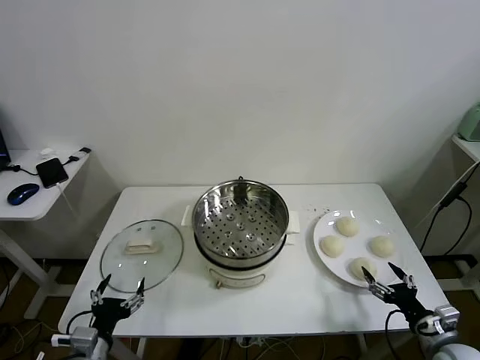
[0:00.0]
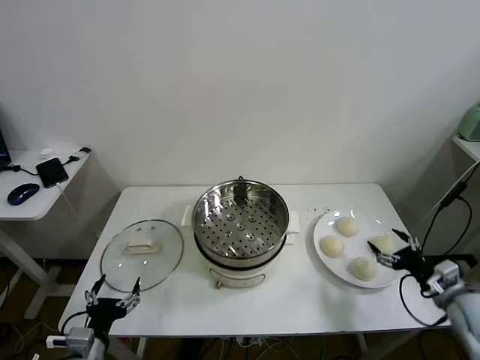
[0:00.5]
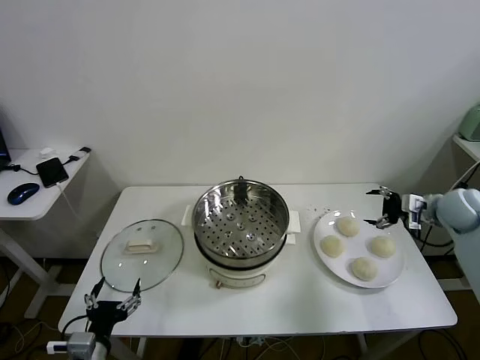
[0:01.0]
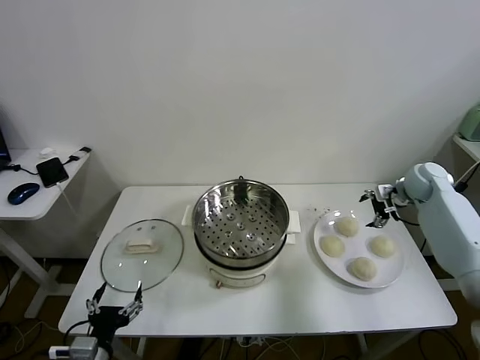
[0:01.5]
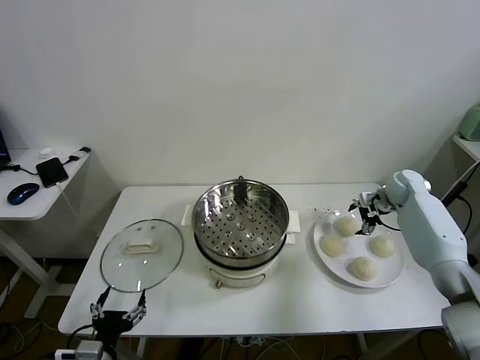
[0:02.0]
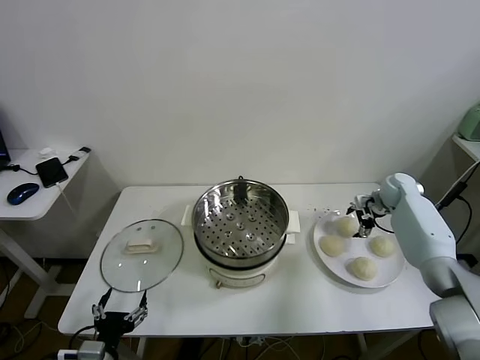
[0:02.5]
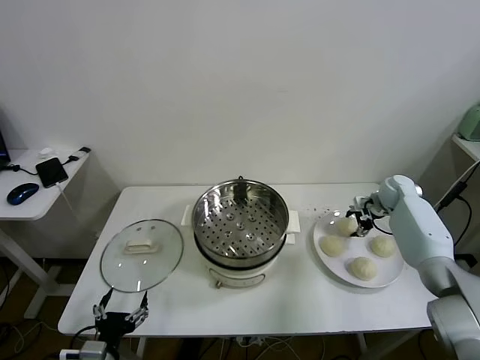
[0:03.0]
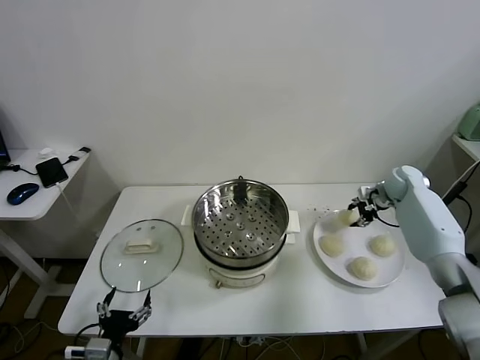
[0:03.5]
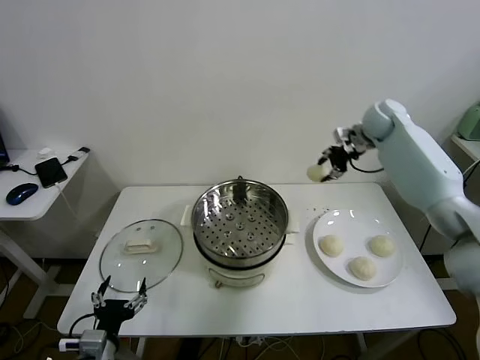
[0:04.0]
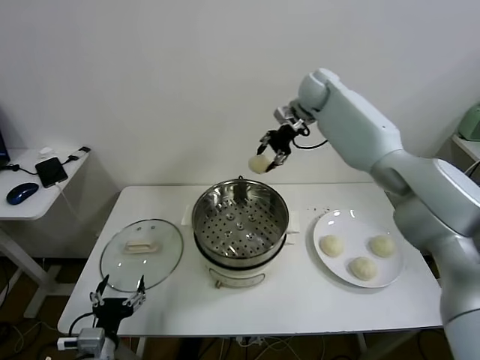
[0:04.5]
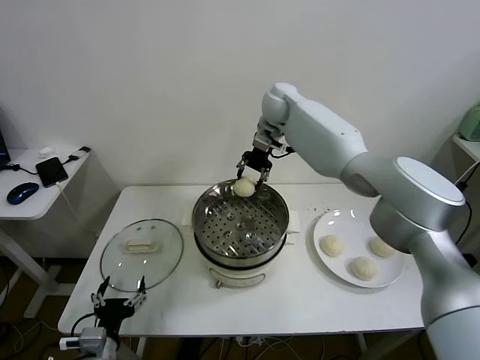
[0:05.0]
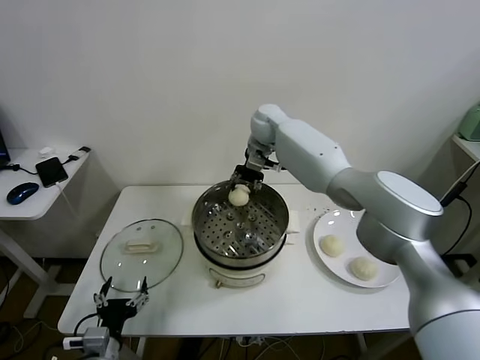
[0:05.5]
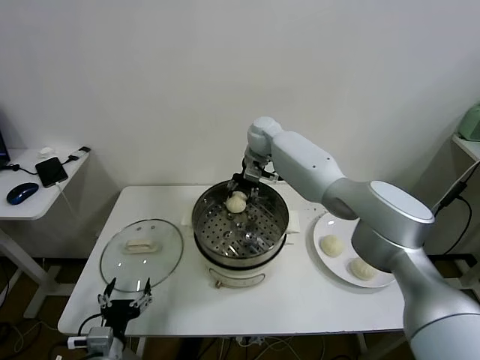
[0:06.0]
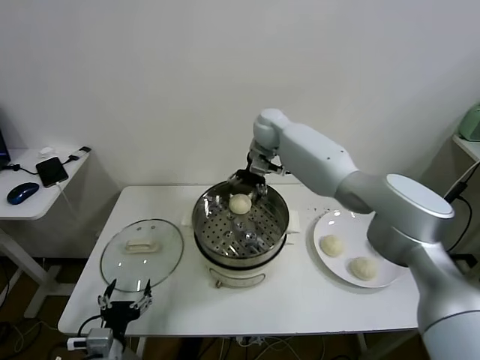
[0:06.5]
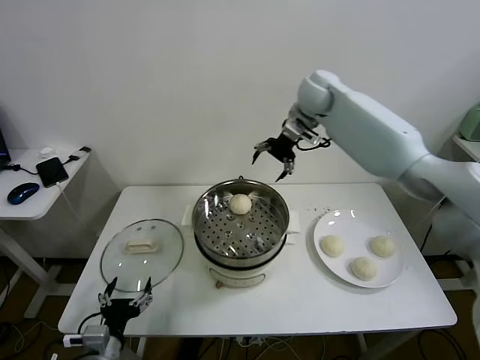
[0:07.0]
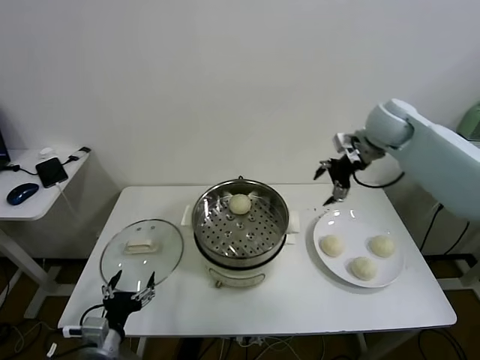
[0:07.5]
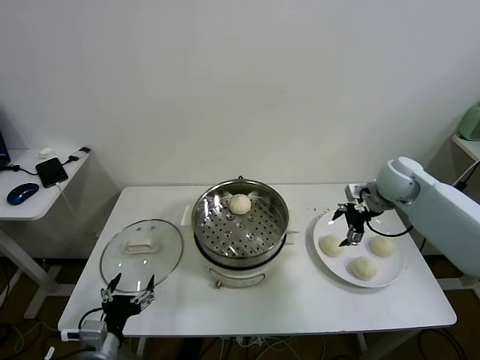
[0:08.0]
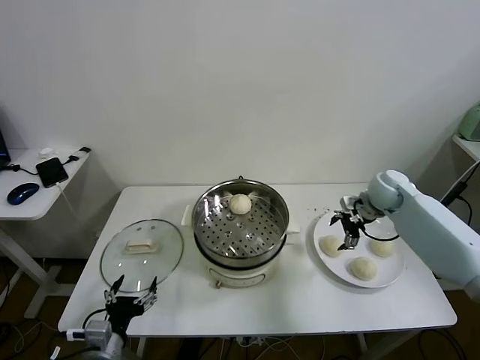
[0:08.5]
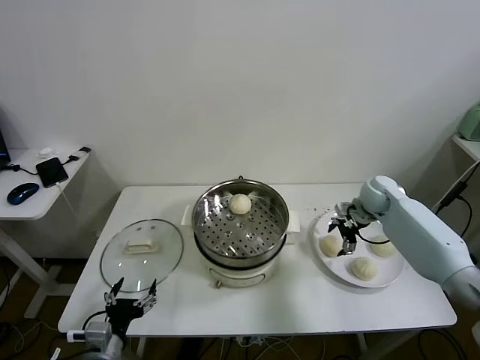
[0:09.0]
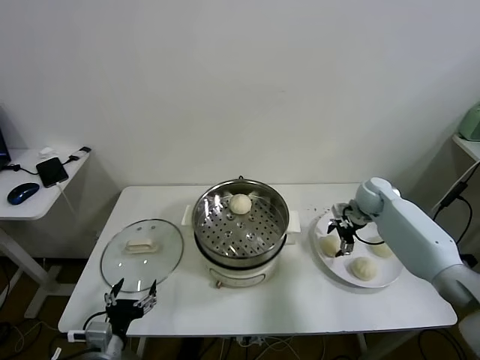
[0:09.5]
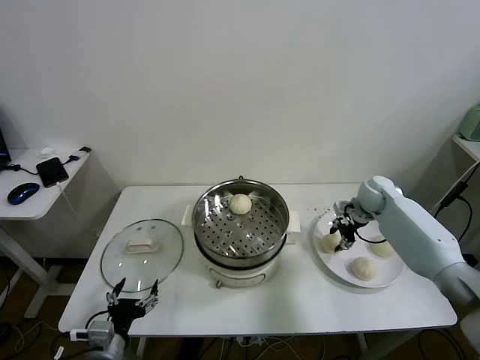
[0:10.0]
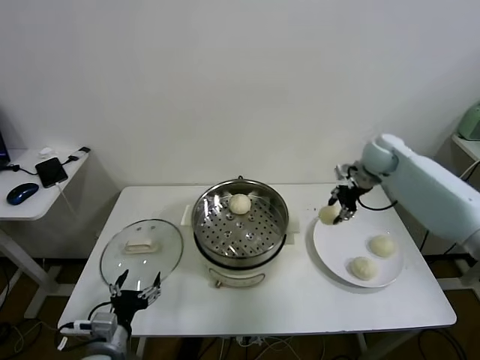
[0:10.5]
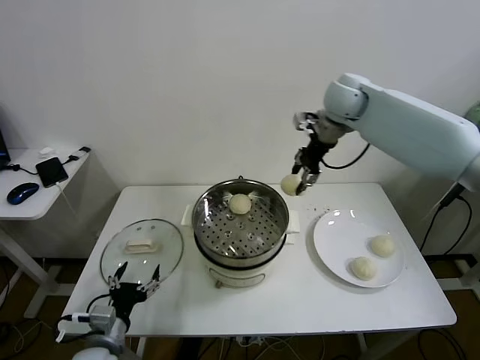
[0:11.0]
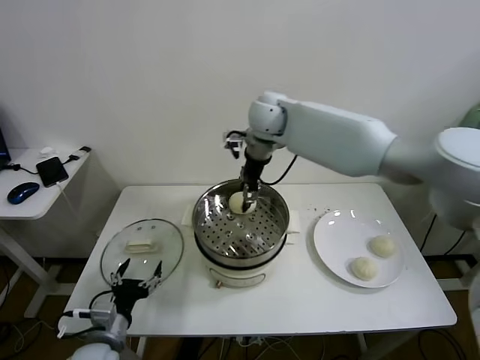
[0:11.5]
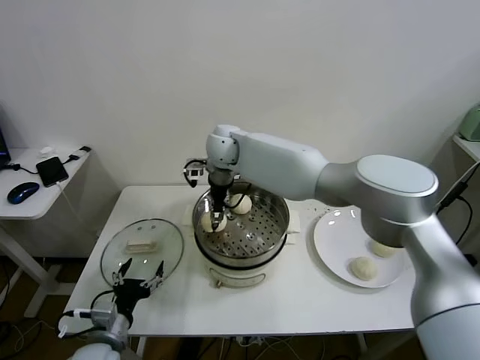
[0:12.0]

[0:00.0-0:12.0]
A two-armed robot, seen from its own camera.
Task of the whole recording: take steamed baozi put them in steamer.
Step, 0.0 to 3.0 s: Grasp the baozi in the plate with right gripper.
Step, 3.5 to 6.0 s: Place the baozi on the steamer with right gripper.
Step, 7.0 to 9.5 s: Grasp the baozi in the plate with right gripper.
2.0 to 4.0 s: The right gripper is displaced upward and to the left by about 25 cm, and closes up.
4.0 to 6.0 s: The right gripper is displaced to the left and downward by approximately 25 cm.
6.0 to 8.0 s: The right gripper is displaced to the right and backward by roughly 35 cm, and opens up.
8.0 to 10.0 s: The right gripper heads downward and forward, covering about 10 cm, and closes its fingers.
10.0 to 12.0 s: The right gripper heads to the left, covering about 40 cm.

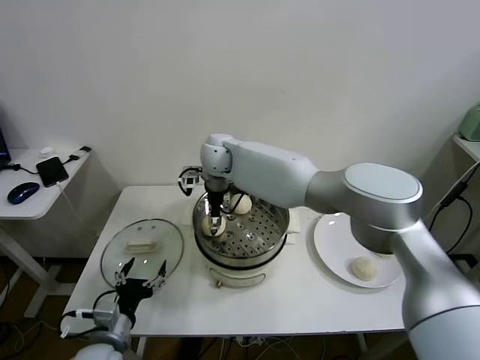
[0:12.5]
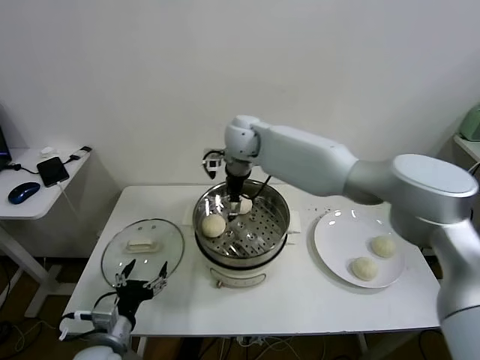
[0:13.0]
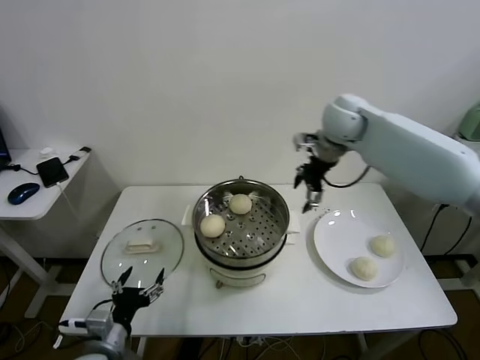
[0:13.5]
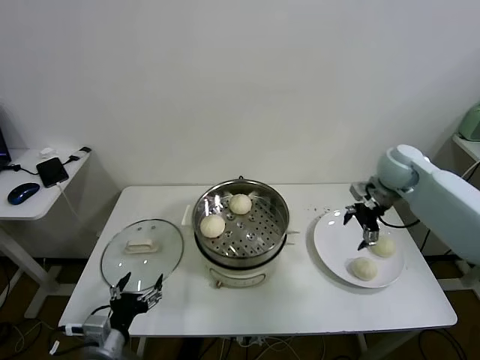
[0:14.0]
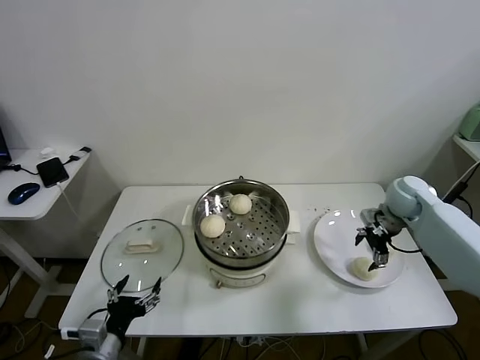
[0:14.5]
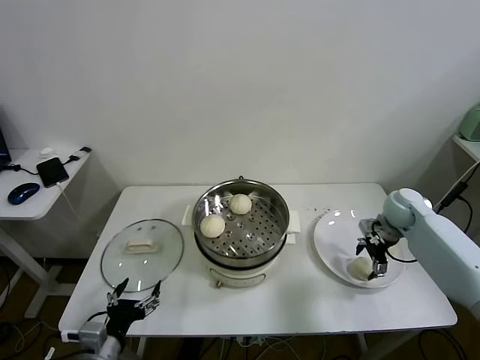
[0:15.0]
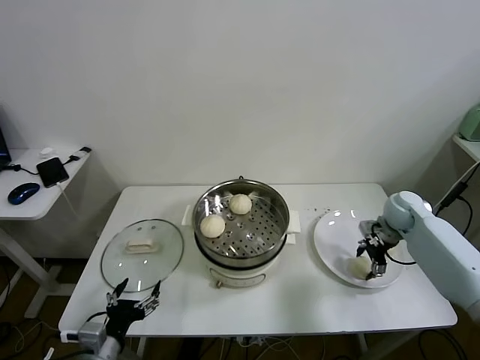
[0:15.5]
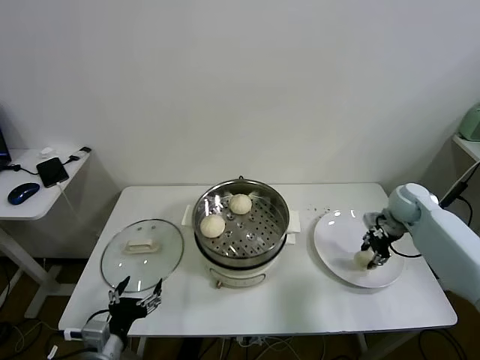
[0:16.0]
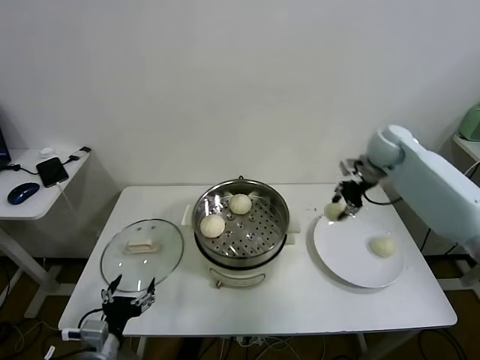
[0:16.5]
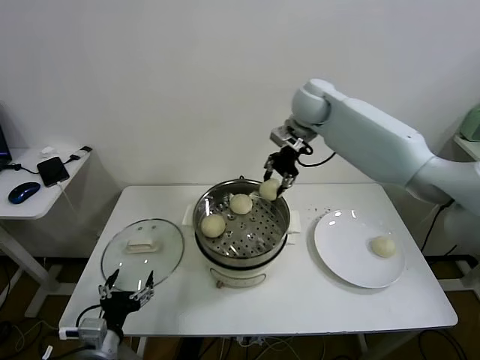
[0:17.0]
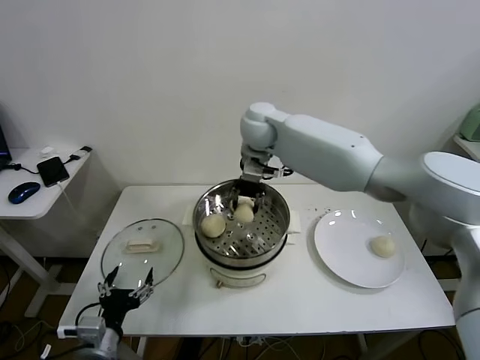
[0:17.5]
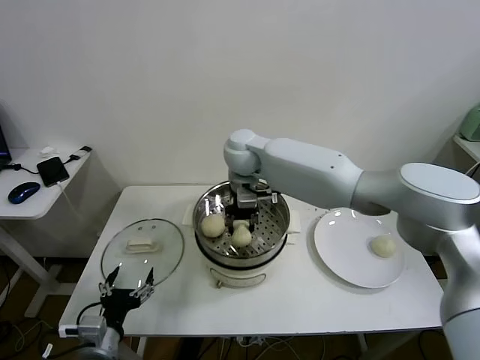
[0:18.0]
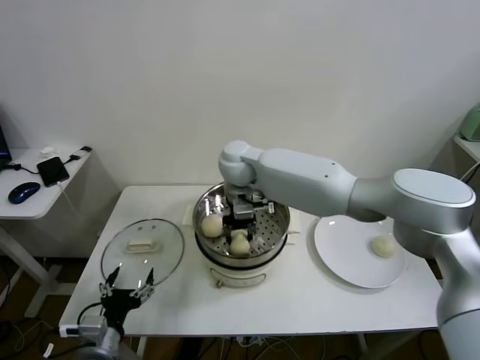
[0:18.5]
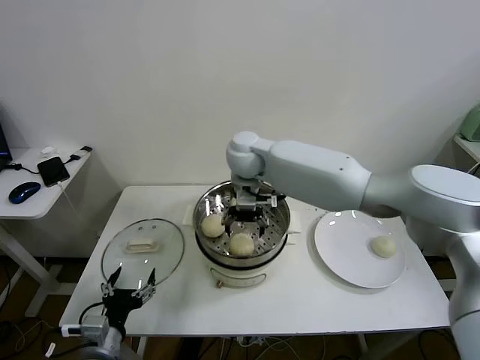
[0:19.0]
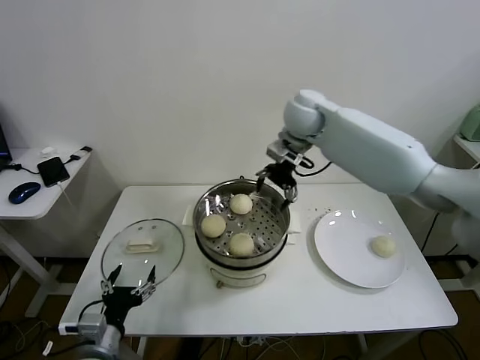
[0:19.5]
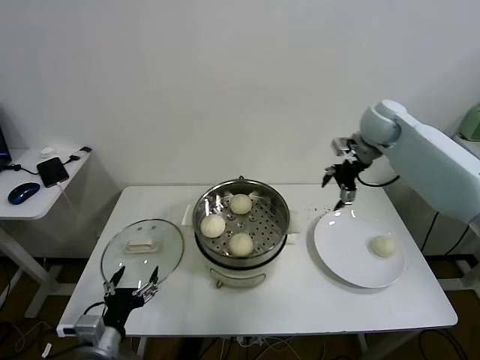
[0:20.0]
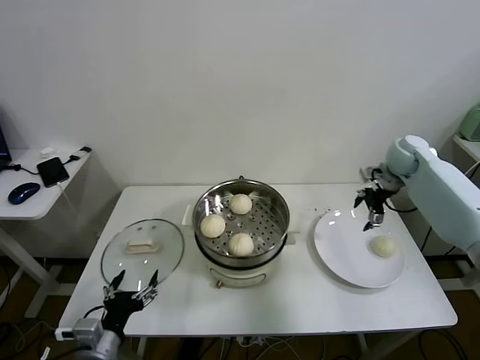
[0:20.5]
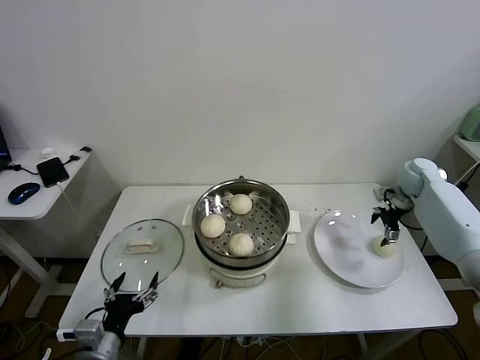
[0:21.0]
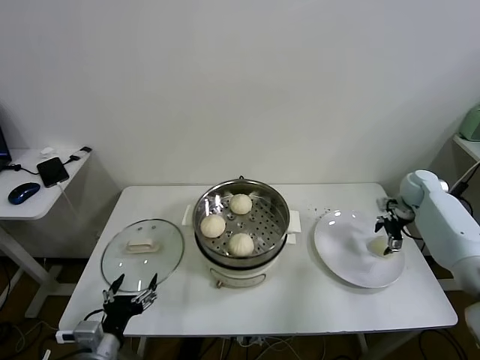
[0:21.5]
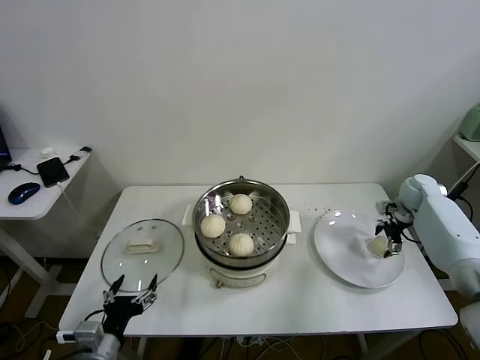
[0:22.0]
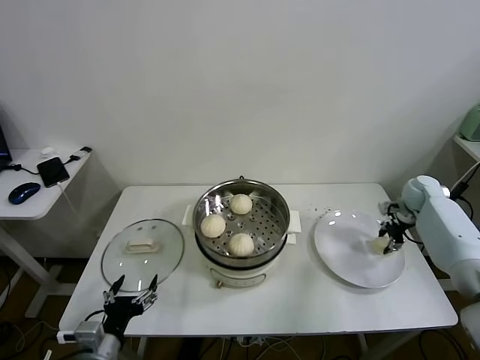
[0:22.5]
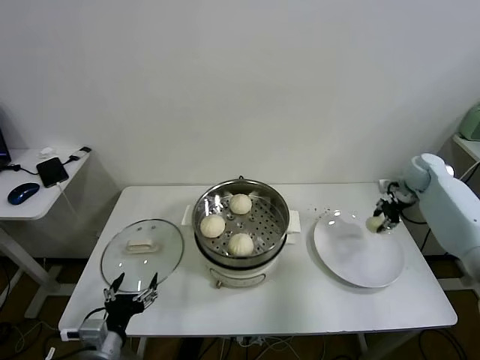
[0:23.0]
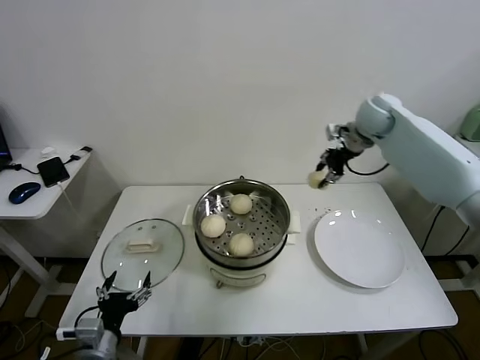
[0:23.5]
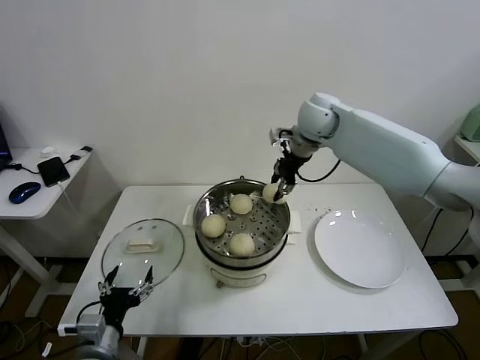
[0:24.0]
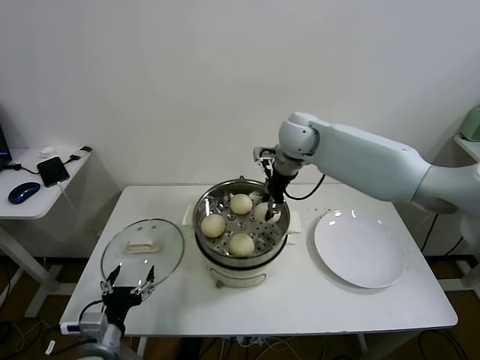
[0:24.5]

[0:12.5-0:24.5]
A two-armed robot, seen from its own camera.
Task of the whole recording: take steamed baozi put them in steamer.
Step, 13.0 to 15.5 s: Grasp the baozi in the plate with right gripper.
Step, 16.0 to 18.5 s: Place the baozi on the steamer with right gripper.
Step, 19.0 to 22.0 s: Grasp the baozi in the plate with right gripper.
12.5 to 14.5 s: The right gripper shifts about 50 cm to the right.
14.5 to 16.5 s: The right gripper moves upward, to the left and forward, approximately 15 cm, and closes its fingers.
16.5 to 18.5 s: The right gripper travels to the left by some 35 cm.
18.5 to 20.5 s: The right gripper shifts roughly 40 cm to the right, and opens its fingers.
20.5 to 22.5 s: The right gripper travels downward and to the right by approximately 15 cm, and closes its fingers.
22.5 to 24.5 s: The right gripper goes some 40 cm to the left and upward.

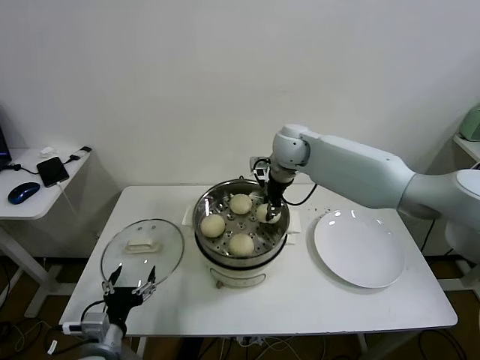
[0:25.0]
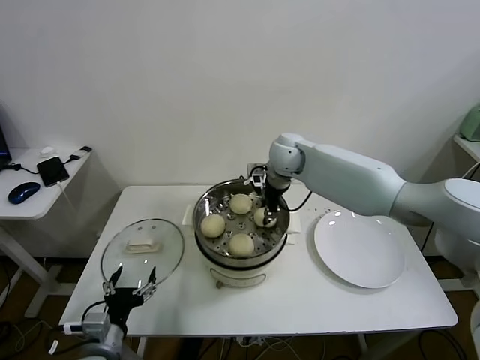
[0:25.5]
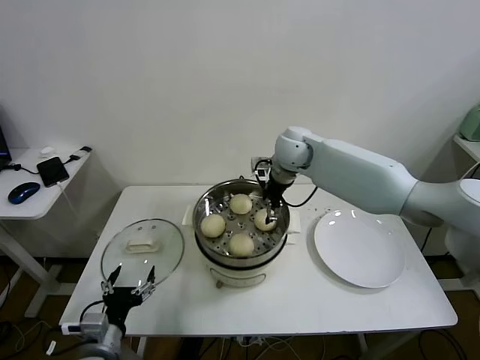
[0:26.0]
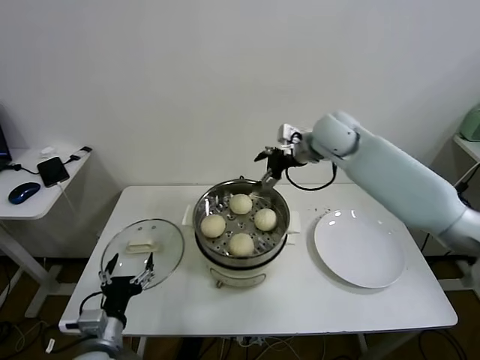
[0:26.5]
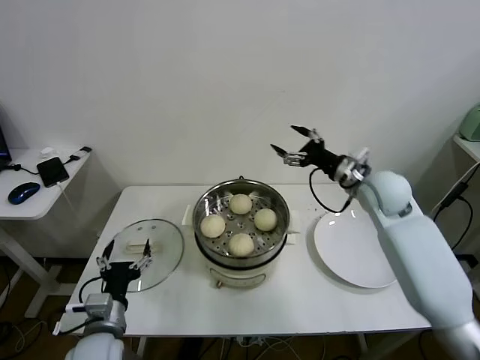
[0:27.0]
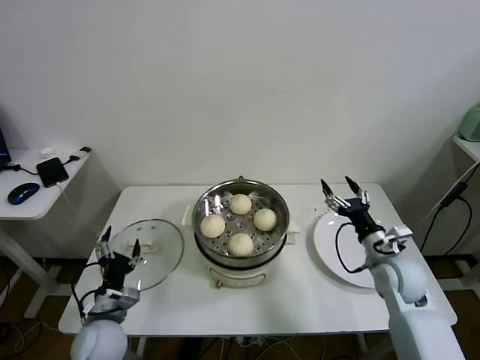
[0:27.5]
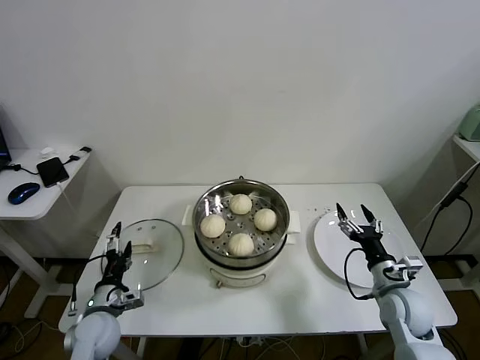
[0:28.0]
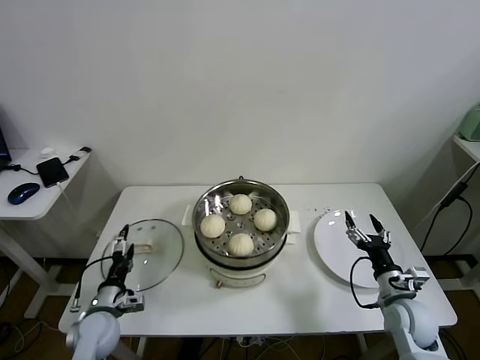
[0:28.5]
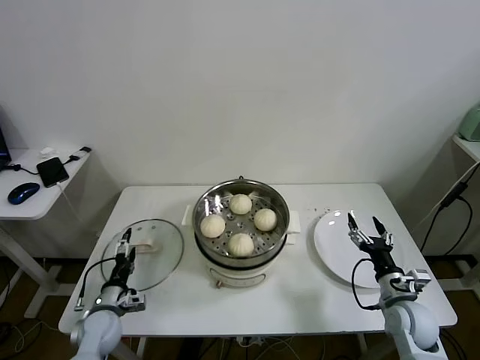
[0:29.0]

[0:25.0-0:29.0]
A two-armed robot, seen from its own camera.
Task of the whole recording: take steamed baozi put them in steamer.
25.0 to 27.0 s: The right gripper shifts about 20 cm to the right and backward, and opens up.
27.0 to 29.0 s: The right gripper moves downward and backward, some 30 cm, while the left gripper travels downward, forward and to the left by about 15 cm.
